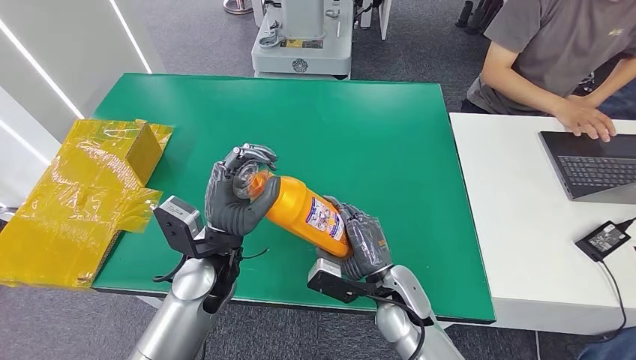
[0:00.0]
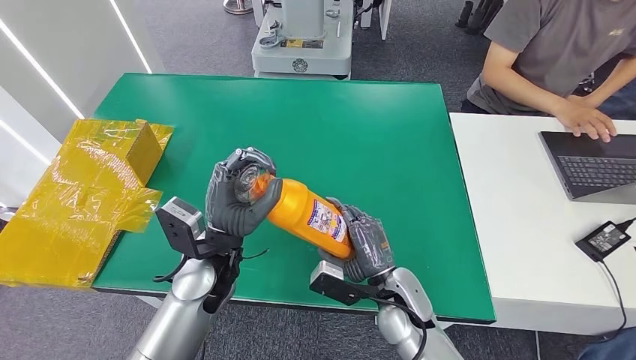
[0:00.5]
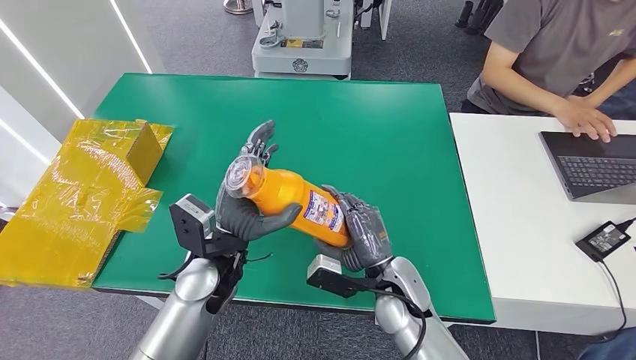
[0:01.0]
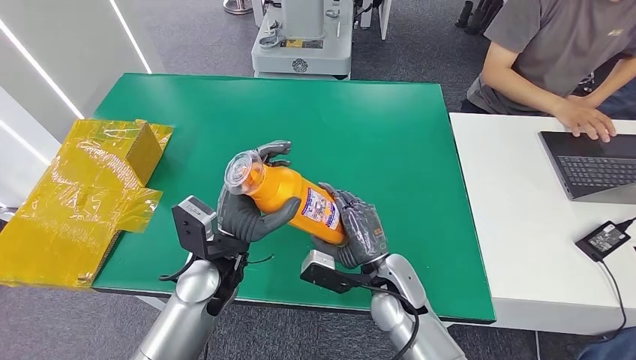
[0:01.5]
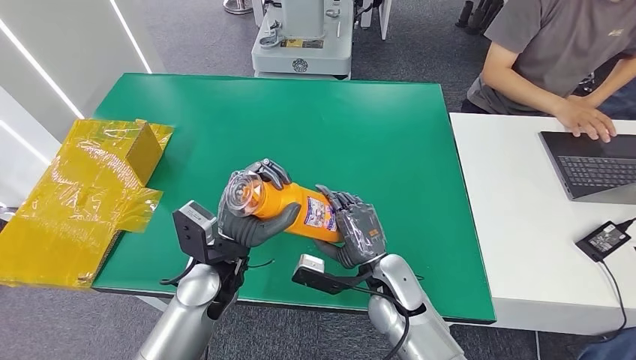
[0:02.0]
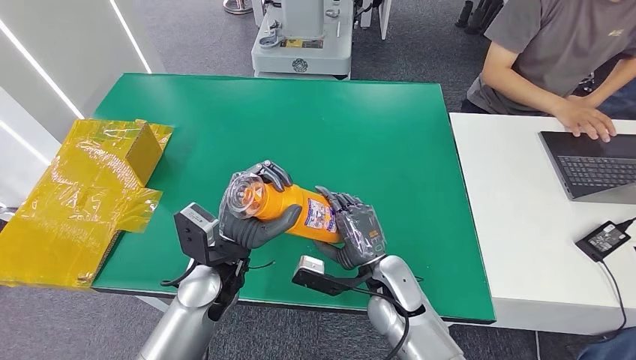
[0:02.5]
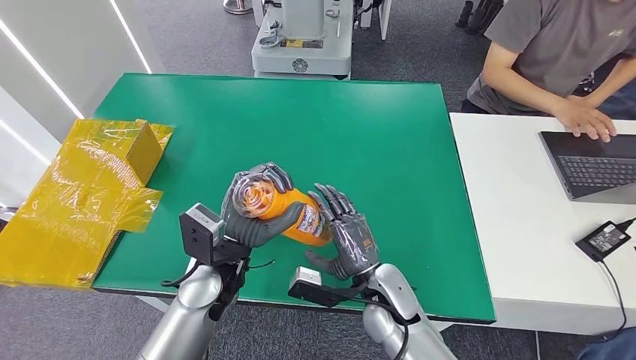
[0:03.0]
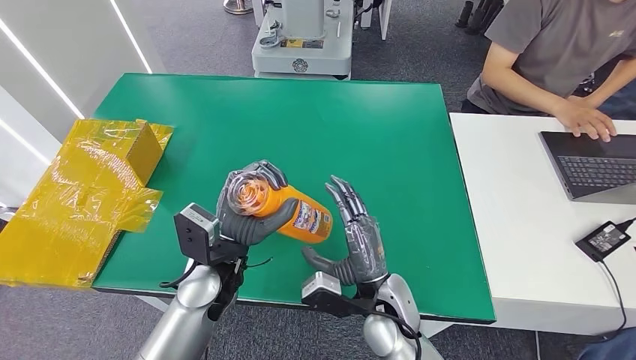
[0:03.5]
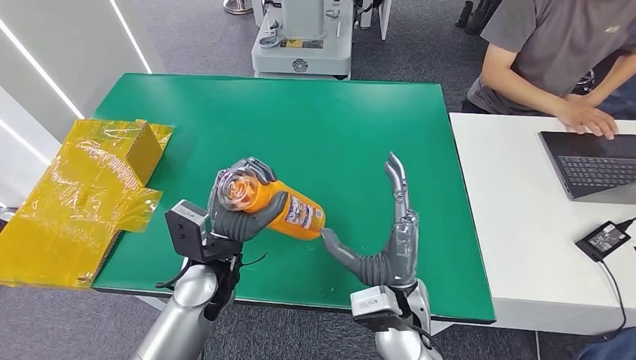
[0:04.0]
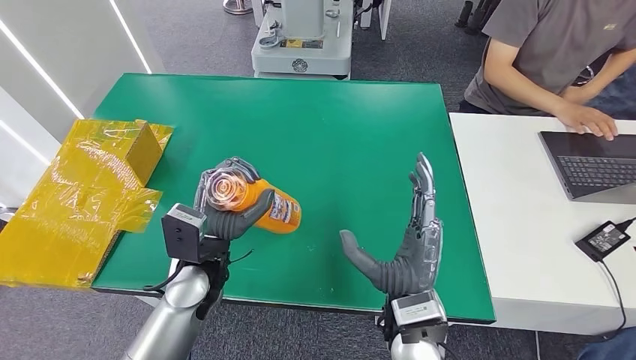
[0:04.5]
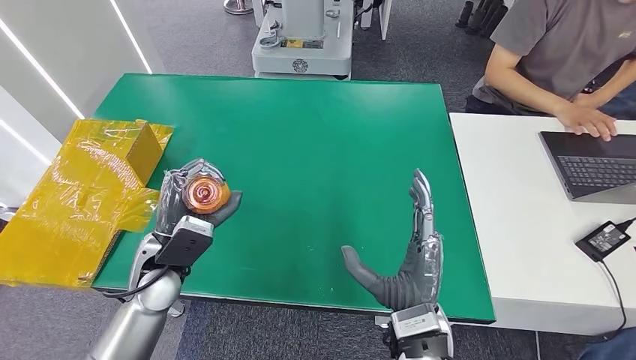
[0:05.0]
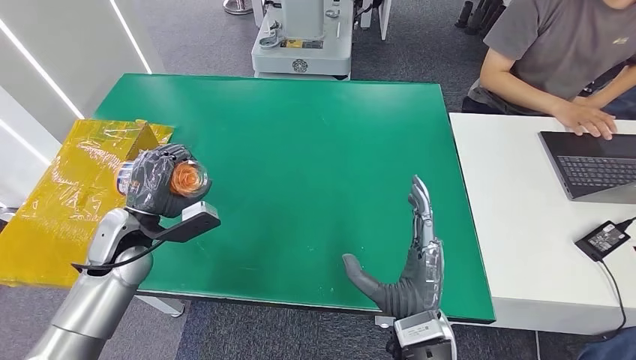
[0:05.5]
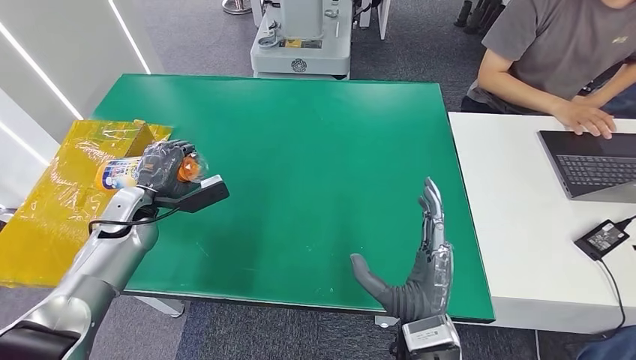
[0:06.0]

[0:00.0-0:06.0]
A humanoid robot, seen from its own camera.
Step, 0:00.0 to 0:06.0: Turn the bottle to the front side.
0:00.0 to 0:02.0: There are only small adjustments of the hands.
0:02.0 to 0:04.0: The right hand is displaced upward and backward by roughly 5 cm.
